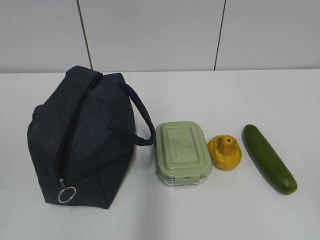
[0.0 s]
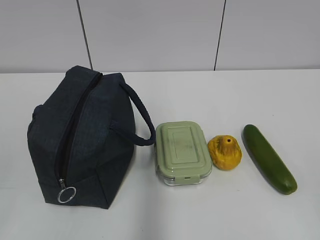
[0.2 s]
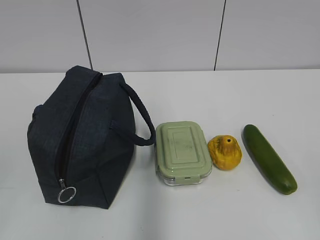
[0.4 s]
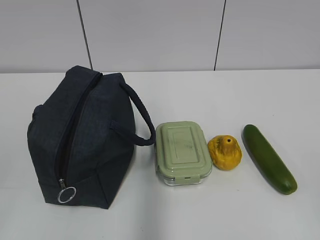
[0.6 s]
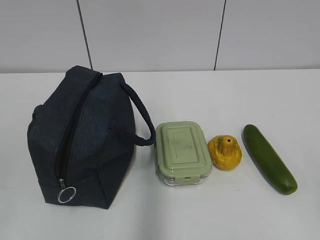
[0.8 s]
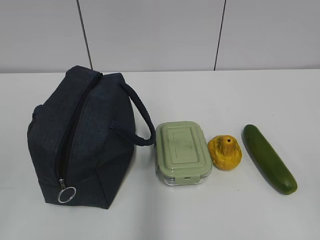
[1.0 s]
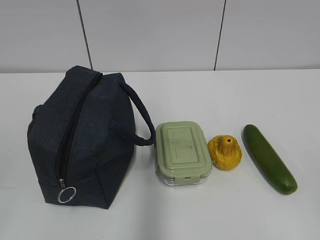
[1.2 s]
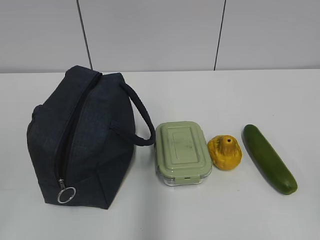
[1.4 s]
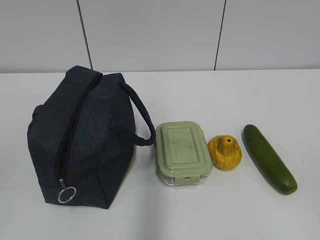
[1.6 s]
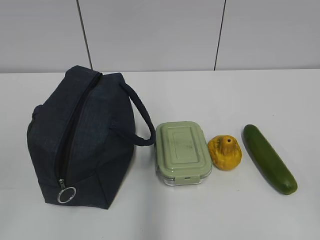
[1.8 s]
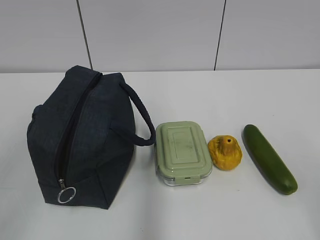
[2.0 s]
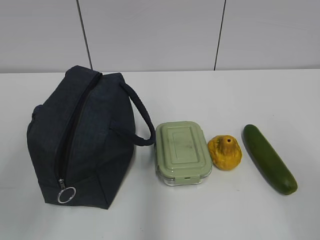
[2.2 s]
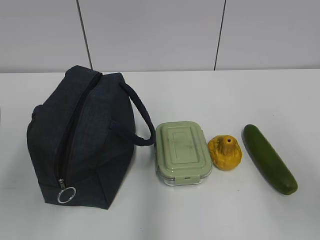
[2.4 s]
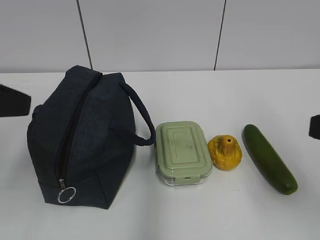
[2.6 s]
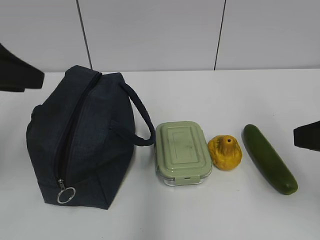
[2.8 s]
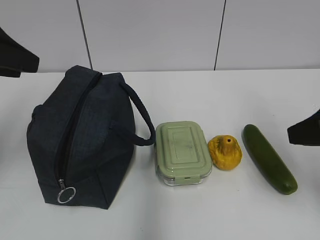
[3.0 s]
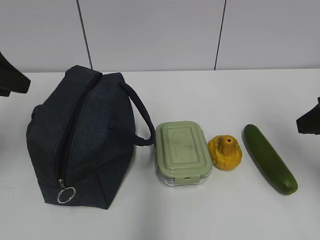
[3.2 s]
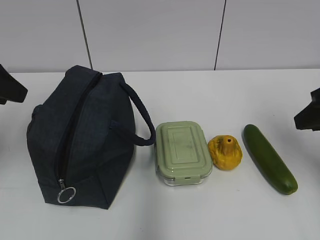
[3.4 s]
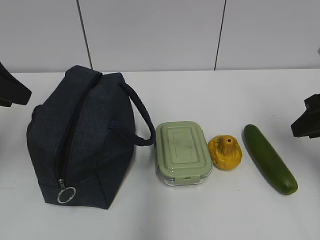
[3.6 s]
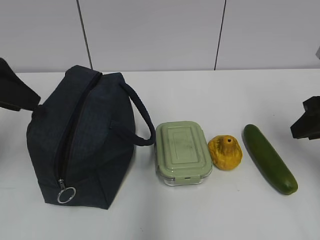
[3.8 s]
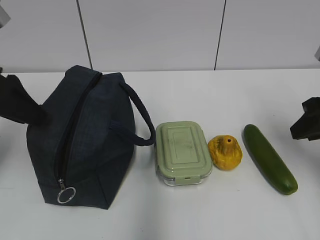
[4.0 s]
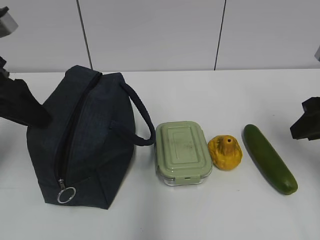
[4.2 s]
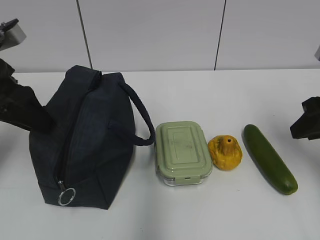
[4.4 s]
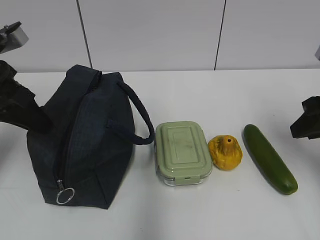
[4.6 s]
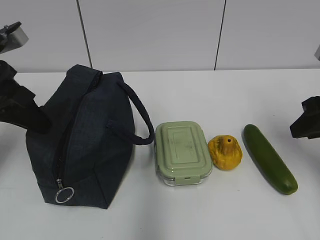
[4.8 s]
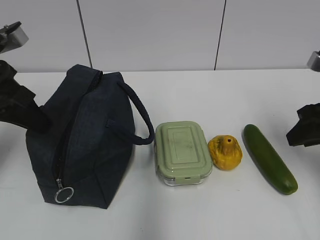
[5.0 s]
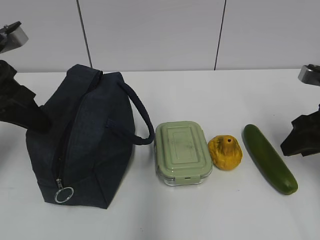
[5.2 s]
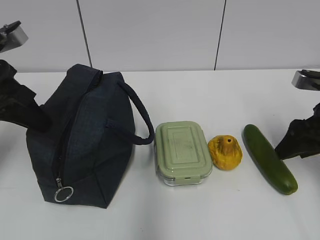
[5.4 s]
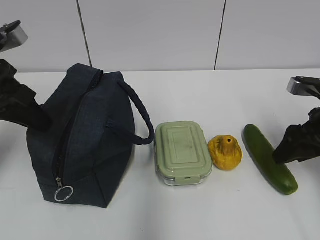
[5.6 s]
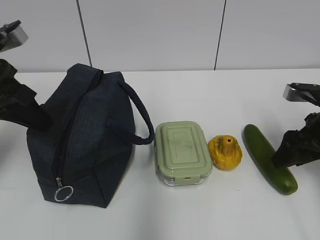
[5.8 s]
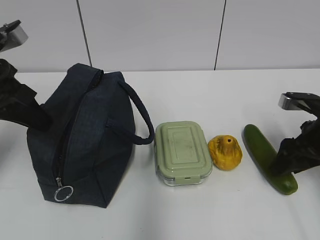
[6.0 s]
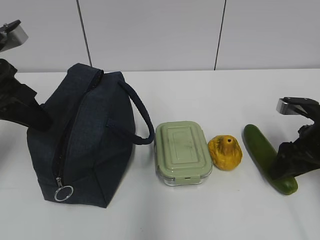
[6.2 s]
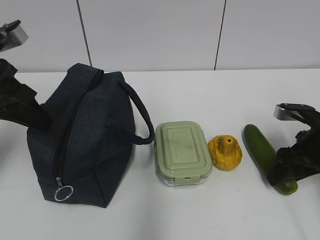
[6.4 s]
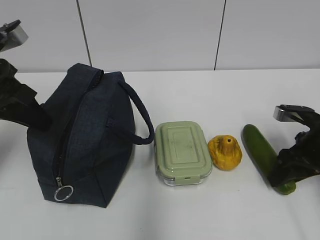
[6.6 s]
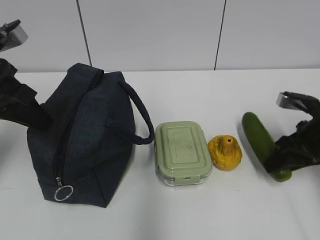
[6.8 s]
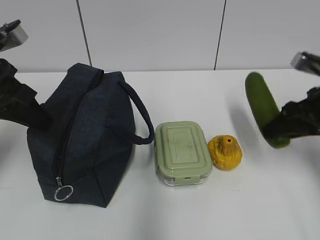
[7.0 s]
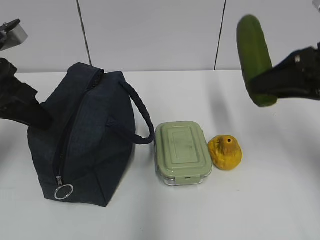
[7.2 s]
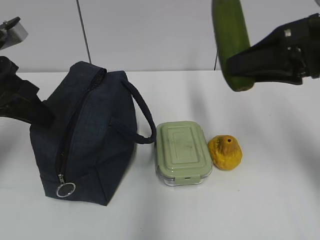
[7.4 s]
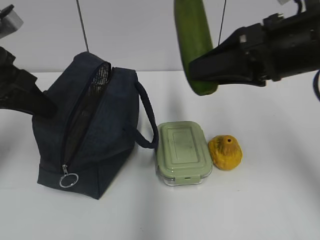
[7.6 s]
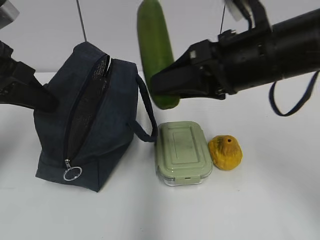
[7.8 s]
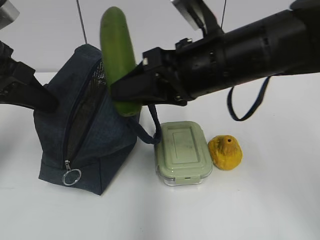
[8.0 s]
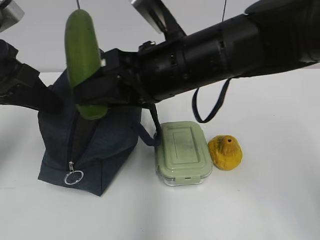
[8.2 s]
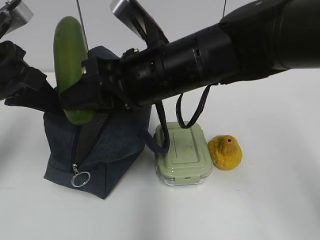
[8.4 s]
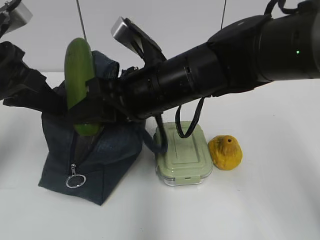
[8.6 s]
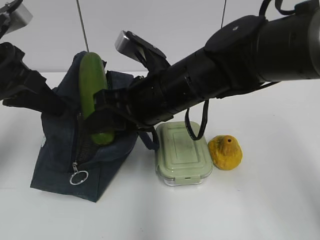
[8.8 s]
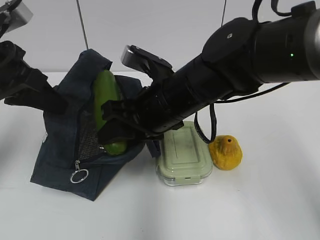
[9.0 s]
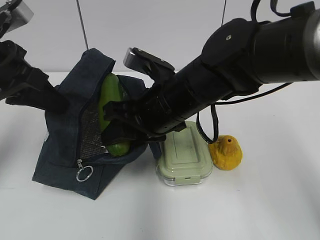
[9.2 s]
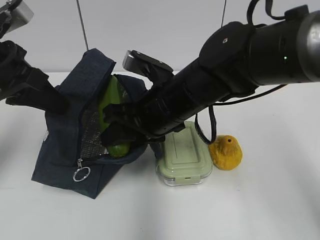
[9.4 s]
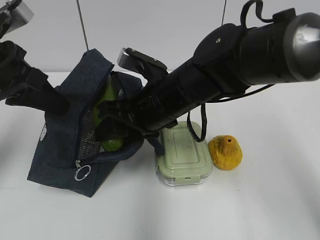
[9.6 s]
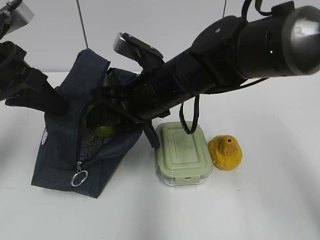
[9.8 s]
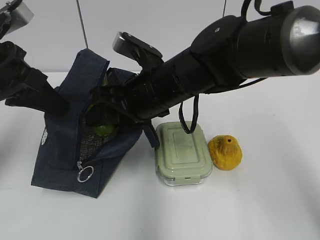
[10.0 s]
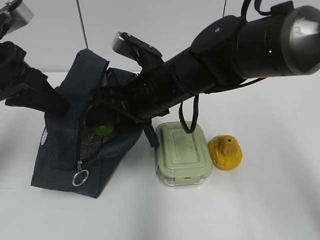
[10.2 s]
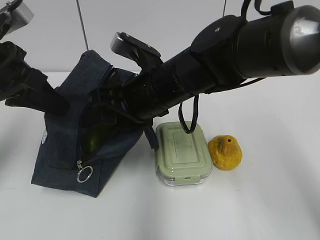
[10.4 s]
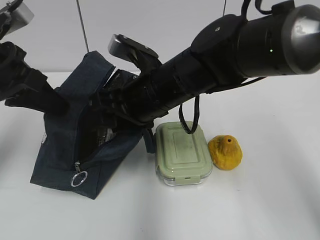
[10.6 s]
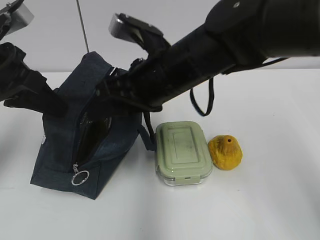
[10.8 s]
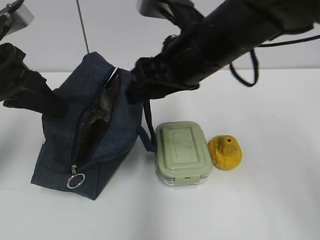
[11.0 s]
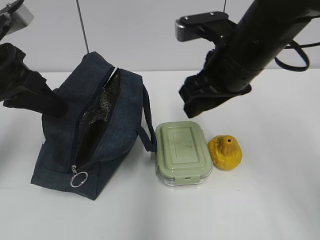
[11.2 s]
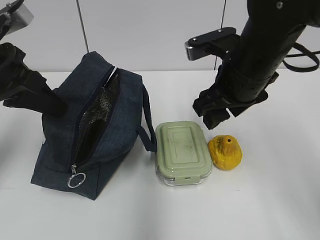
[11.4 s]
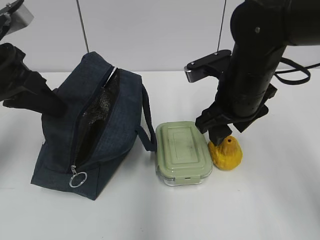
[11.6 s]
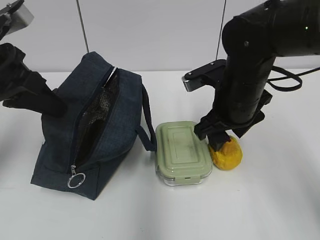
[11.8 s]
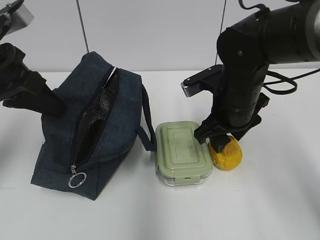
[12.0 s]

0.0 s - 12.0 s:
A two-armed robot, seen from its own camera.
Step, 0.0 s - 4.6 s: Grab the lunch bag with your left hand.
Step, 5.0 s - 6.6 s: Grab the cucumber with your right hand.
Step, 6.8 s - 10.6 s: Place it into the bag with your right hand.
1.6 s - 3.0 s: Both grippers move forward, about 25 cm. The right gripper opens up.
3.0 s - 4.4 s: The right gripper is displaced forward by approximately 5 cm. Meanwhile the left gripper is displaced downward by roughly 5 cm.
4.4 s - 6.0 s: The right gripper is displaced downward by roughly 10 cm, and opens, while the left gripper closes up.
6.0 s - 7.6 s: The right gripper is displaced upward and to the left by approximately 20 cm.
7.6 s - 9.0 s: The right gripper heads to the left and downward, covering some 15 cm.
9.0 s - 10.4 s: The right gripper opens its fingers.
10.4 s - 12.0 s: The right gripper shifts roughly 10 cm to the right.

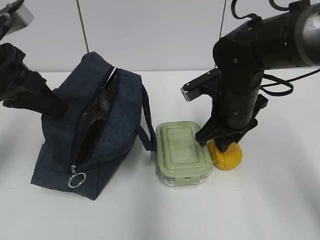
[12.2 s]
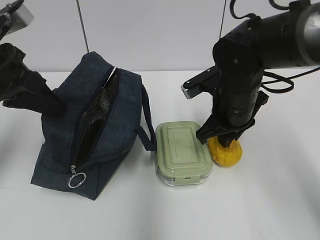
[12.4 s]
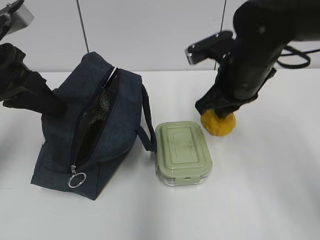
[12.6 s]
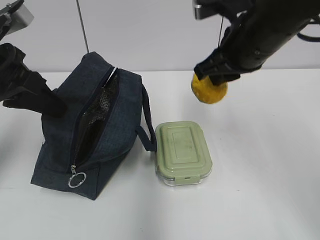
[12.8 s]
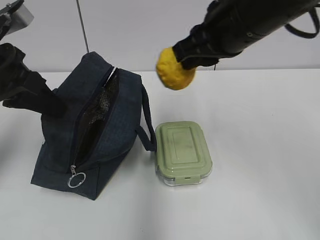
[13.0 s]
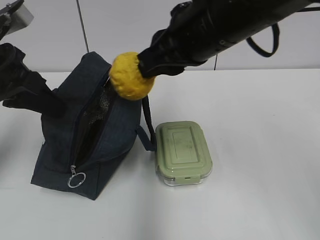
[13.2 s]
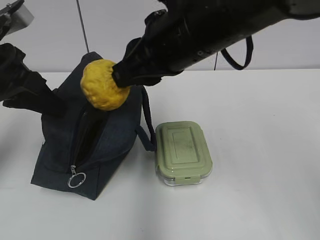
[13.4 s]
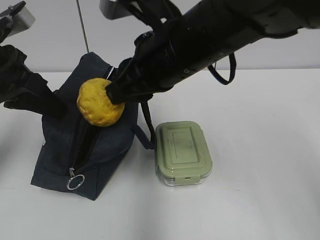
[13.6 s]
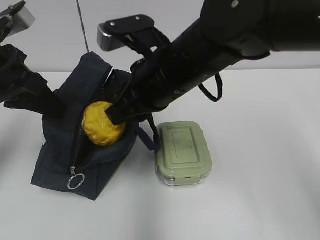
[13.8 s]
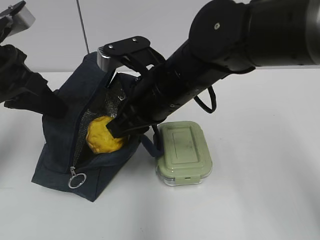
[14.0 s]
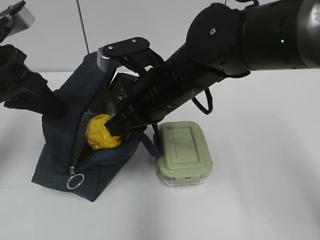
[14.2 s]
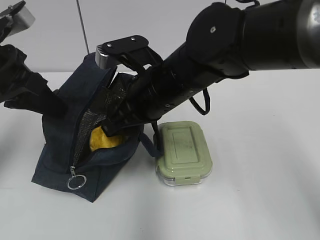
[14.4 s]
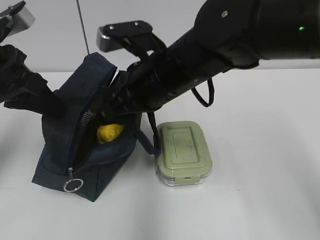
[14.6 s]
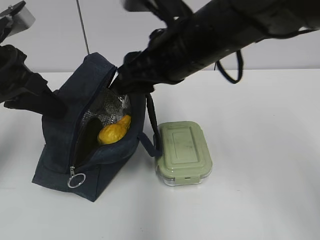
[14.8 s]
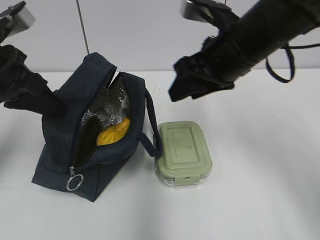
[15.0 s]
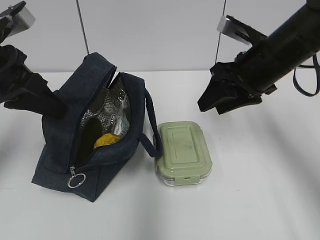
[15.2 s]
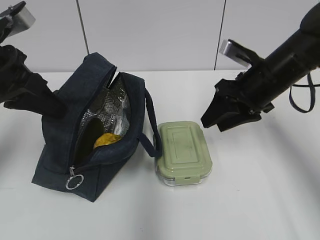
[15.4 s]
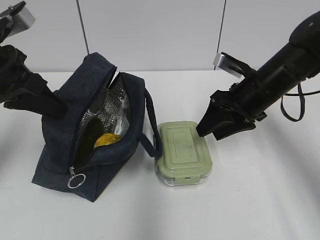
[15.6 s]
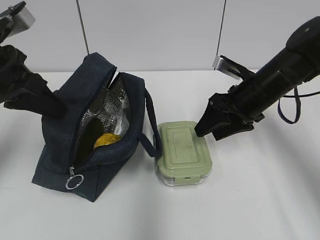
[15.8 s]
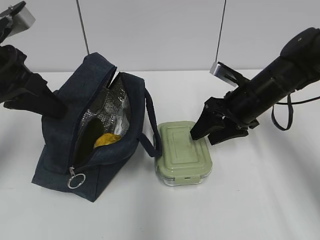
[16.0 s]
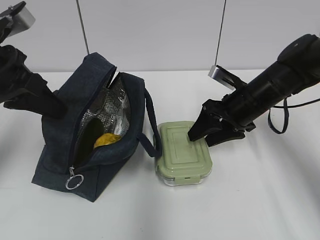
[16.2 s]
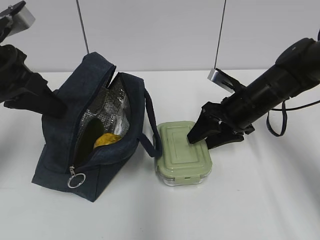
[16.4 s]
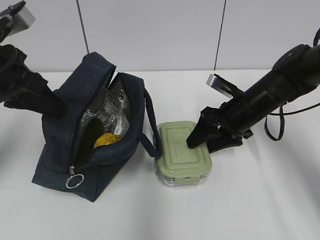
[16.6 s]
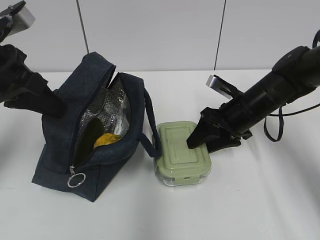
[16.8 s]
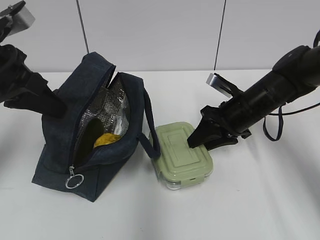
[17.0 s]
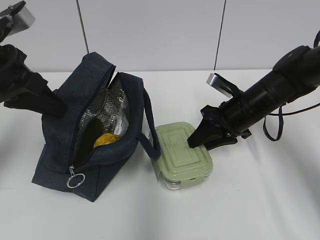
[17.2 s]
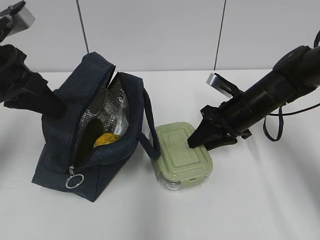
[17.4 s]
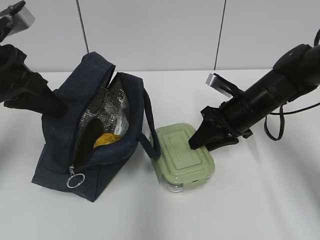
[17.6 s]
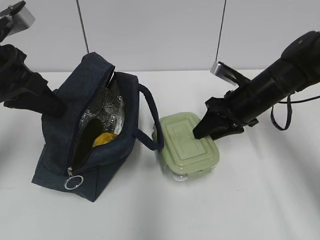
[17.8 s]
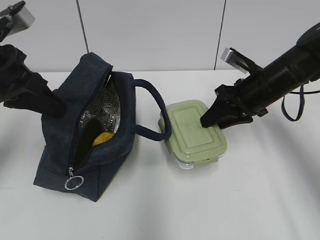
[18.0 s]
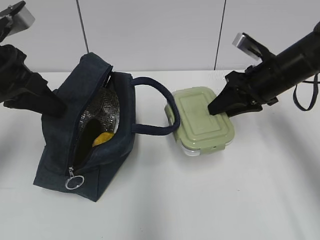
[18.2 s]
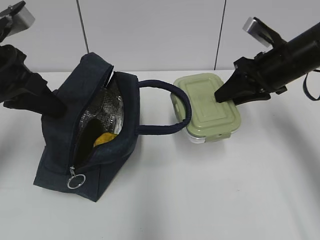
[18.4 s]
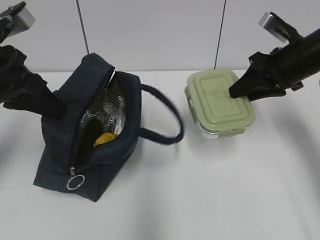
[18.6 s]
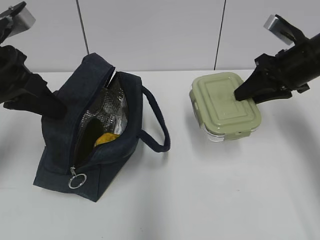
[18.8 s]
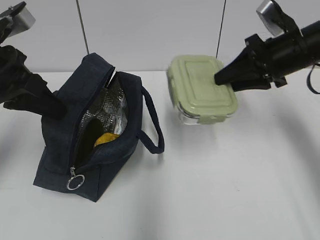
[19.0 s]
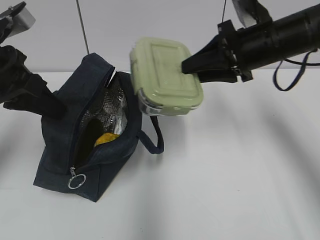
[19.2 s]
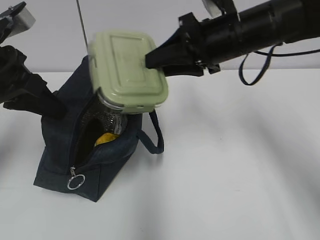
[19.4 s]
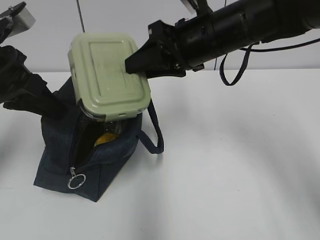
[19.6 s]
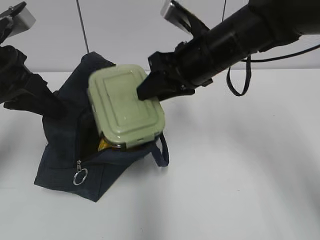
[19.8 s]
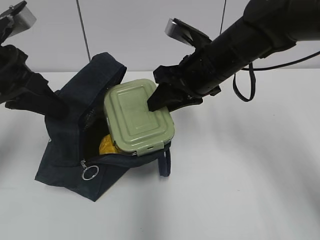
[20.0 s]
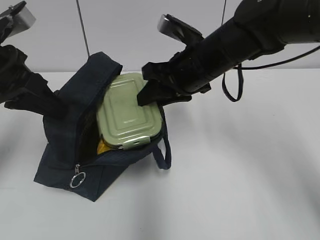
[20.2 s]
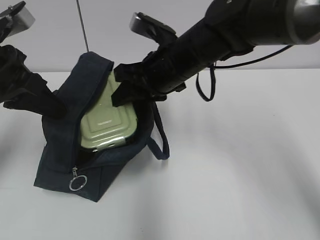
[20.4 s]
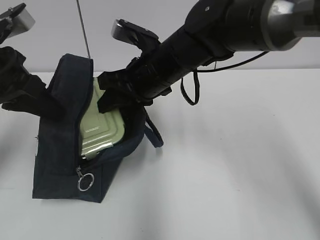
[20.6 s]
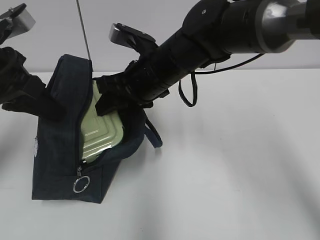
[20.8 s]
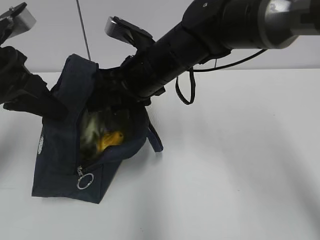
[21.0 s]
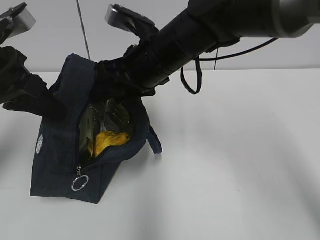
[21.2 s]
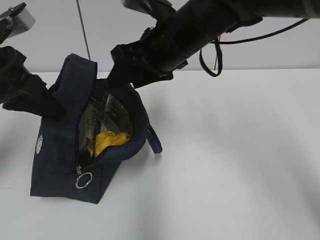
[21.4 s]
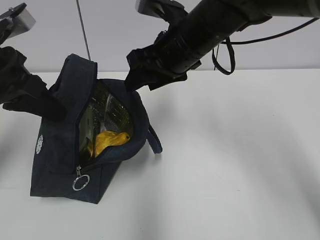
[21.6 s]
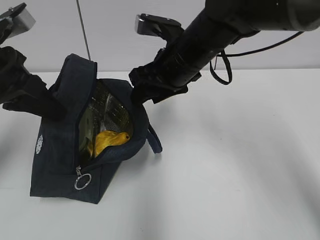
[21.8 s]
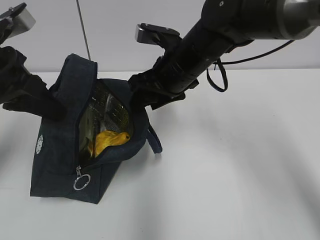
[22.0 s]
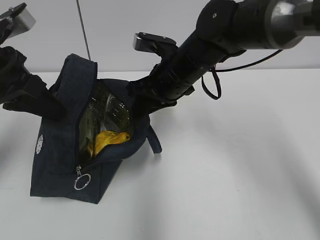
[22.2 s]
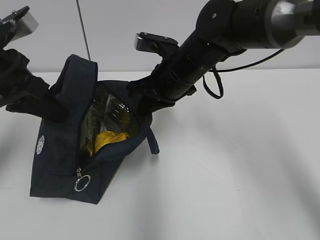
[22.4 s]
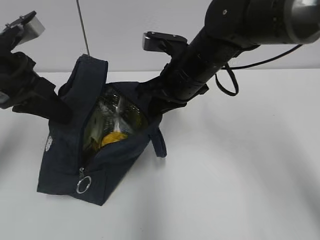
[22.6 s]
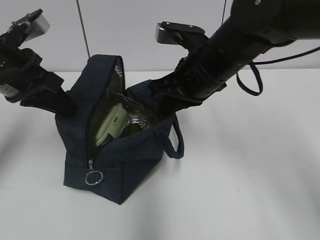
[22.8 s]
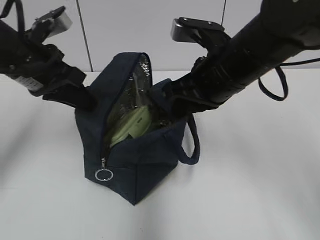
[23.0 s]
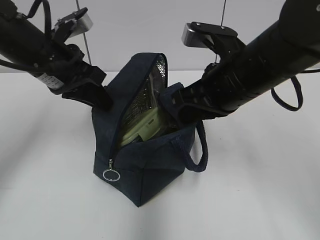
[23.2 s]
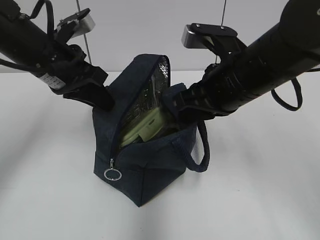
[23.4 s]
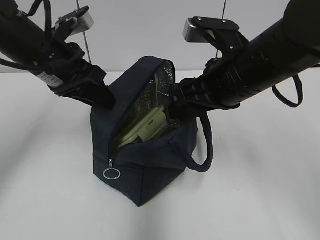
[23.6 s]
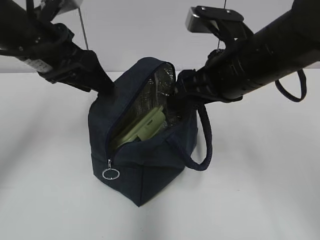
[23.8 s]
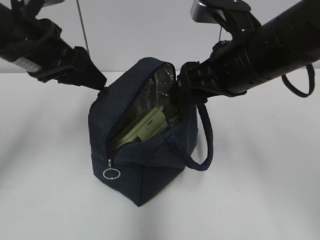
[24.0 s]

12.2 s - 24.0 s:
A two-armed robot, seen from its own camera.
Step, 12.6 s - 14.4 s: Place it into the bag with your right hand.
Step, 14.6 s - 17.6 s: Grab the lunch box with your right hand.
Step, 21.2 s - 22.0 s: Grab the lunch bag with your right hand.
Step, 22.4 s - 23.4 s: Move the lunch bag to the right.
12.2 s - 13.6 s: The right gripper shifts roughly 15 cm upward, to the left and backward.
13.6 s - 15.2 s: The right gripper moves to the right and forward, some 15 cm, and opens.
15.2 s - 16.6 s: The right gripper moves downward, about 10 cm.
16.6 s - 18.2 s: The right gripper travels upward by approximately 10 cm, and closes up.
18.2 s - 19.6 s: The right gripper heads to the left and upward, covering some 15 cm.
19.6 s - 21.0 s: The right gripper travels to the left by approximately 10 cm, and opens up.
21.0 s - 22.6 s: The right gripper heads to the right, covering some 5 cm, and closes its fingers.
22.6 s - 24.0 s: The right gripper shifts approximately 10 cm backward, upward and to the right, and opens up; the left gripper opens its fingers.
